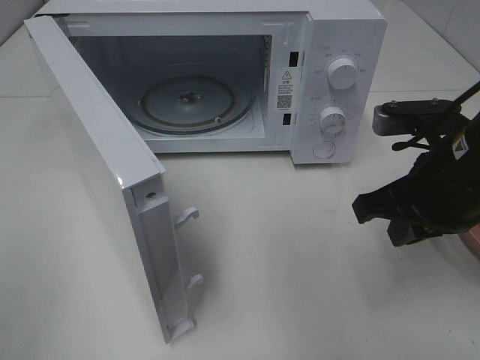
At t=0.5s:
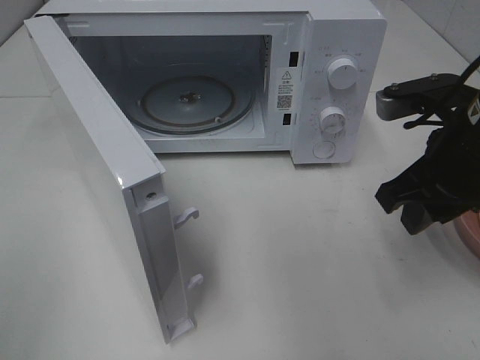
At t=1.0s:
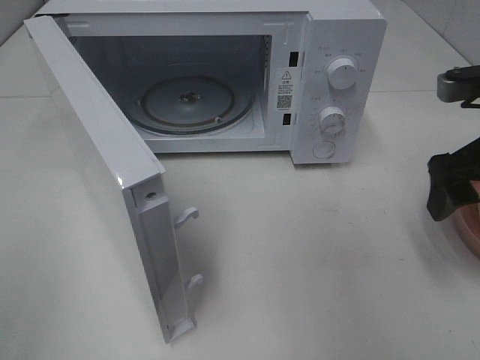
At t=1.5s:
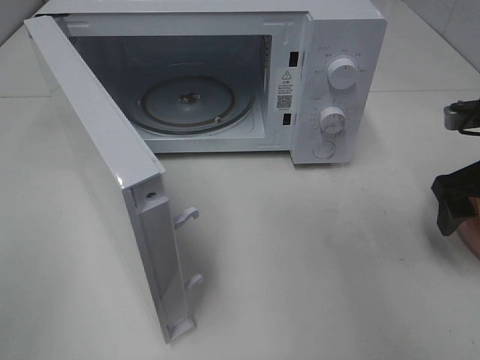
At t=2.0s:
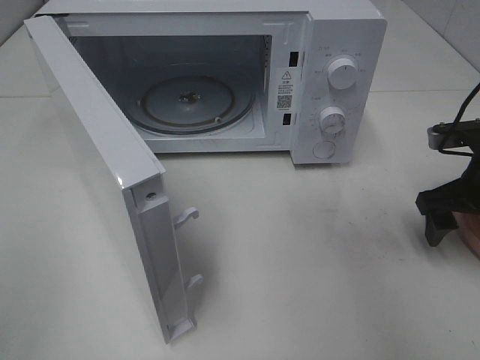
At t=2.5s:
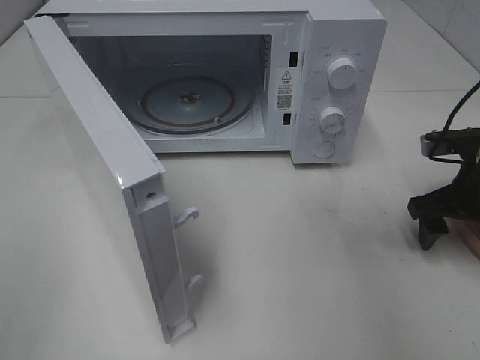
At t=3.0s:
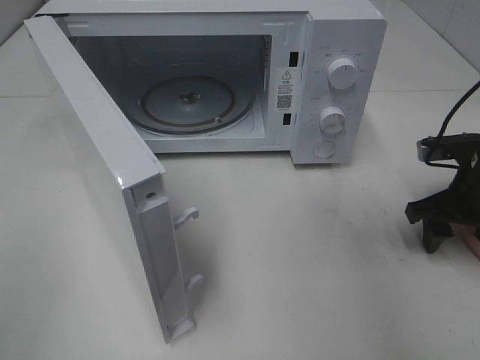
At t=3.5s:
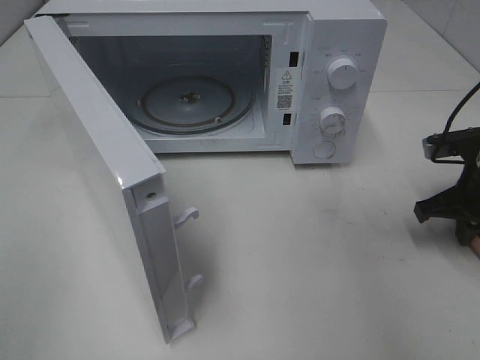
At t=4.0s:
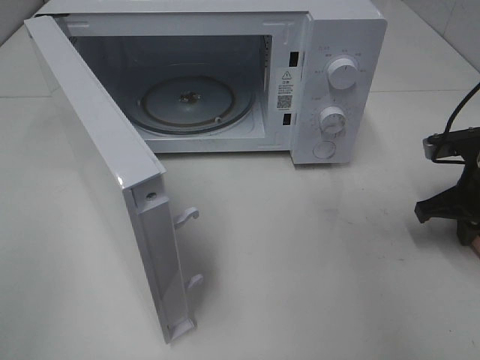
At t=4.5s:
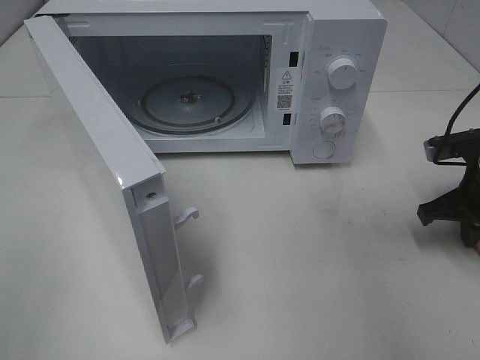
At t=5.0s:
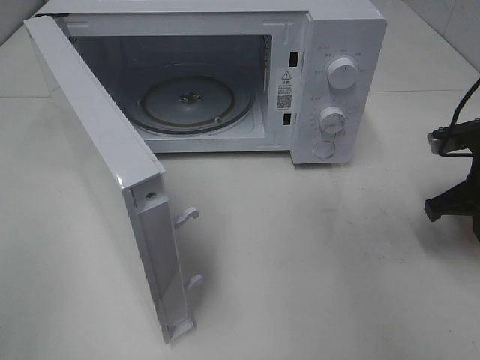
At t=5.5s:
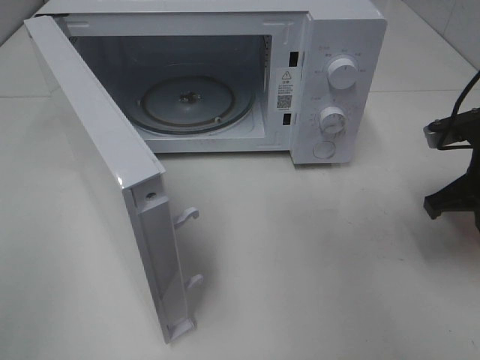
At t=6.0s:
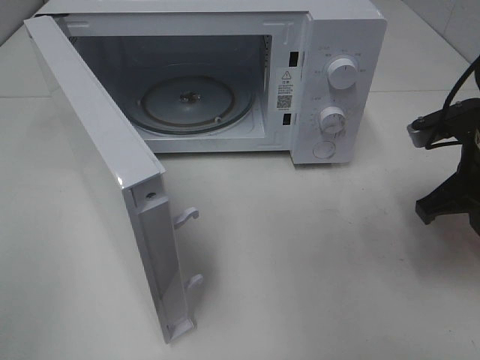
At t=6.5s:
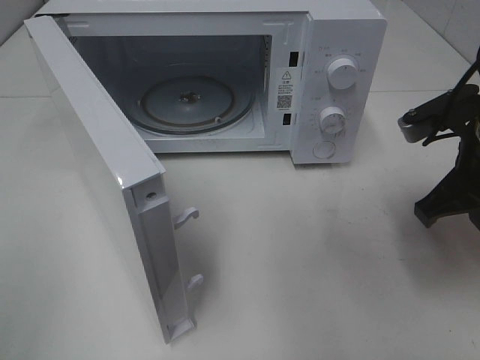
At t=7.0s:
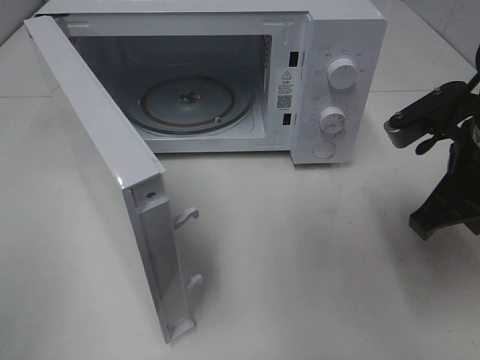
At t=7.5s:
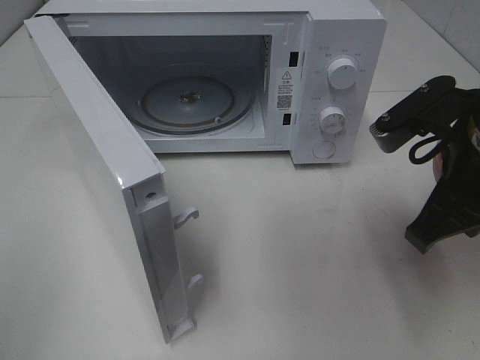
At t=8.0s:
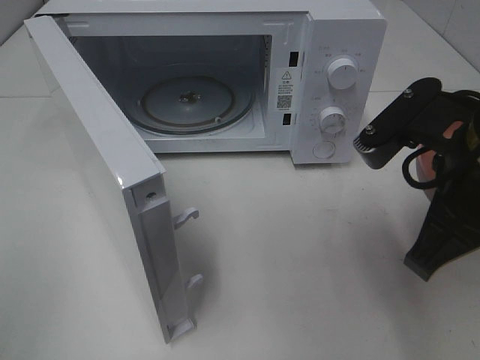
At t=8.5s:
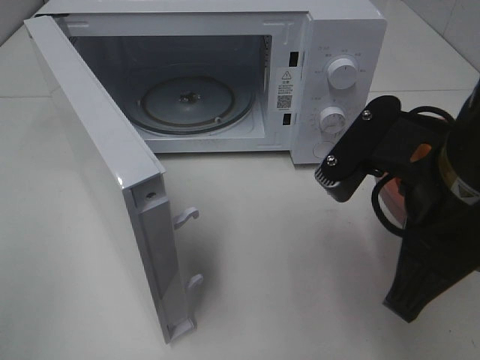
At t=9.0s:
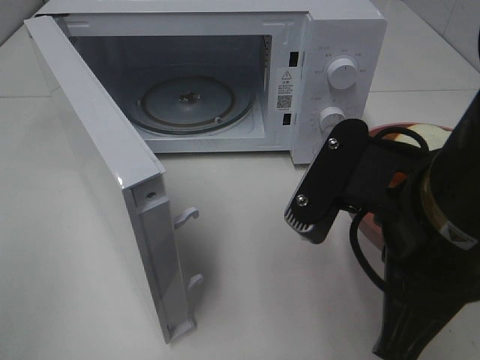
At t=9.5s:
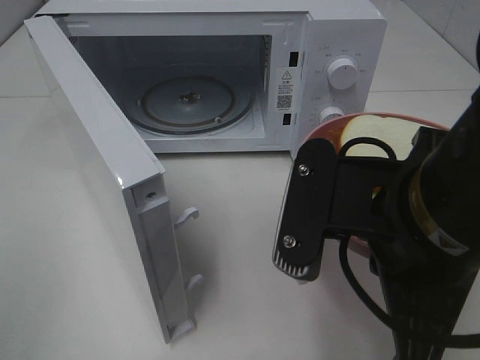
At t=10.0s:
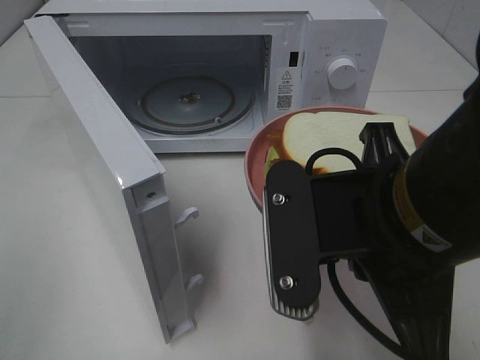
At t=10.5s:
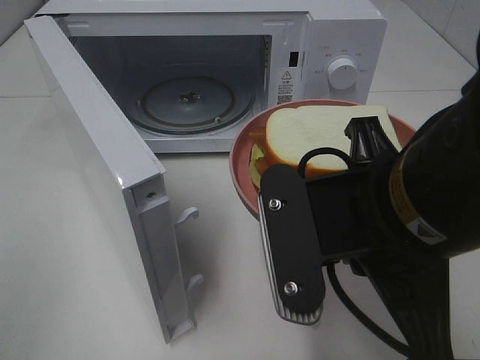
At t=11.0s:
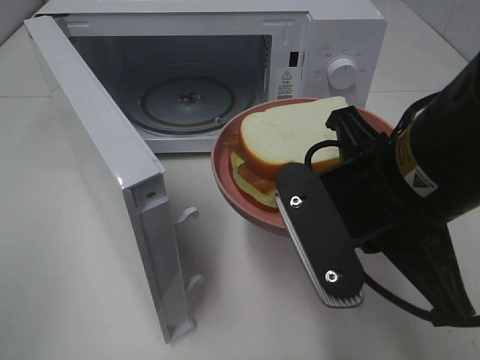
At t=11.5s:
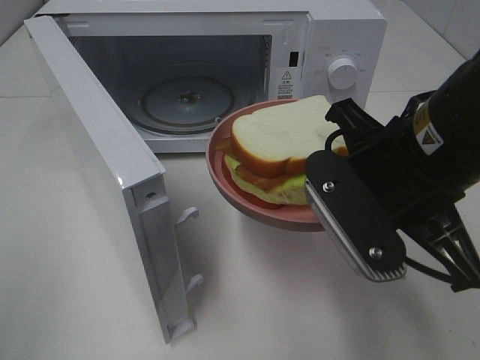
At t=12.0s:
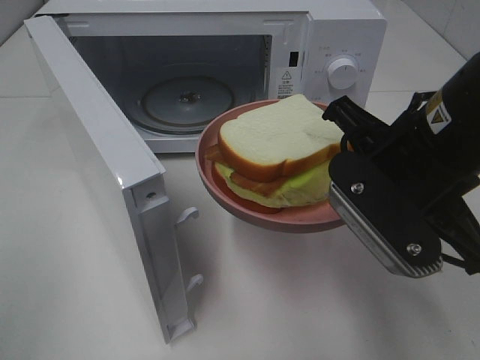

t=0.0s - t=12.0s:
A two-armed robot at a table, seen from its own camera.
Task of the whole recording: Heat Sandwich.
Step, t=0.0s - t=3.5s: Right hand: grab the plate with the sandwich.
t=0.0s - t=2.0s: The right gripper shifts about 15 cm to the right, forward and downward, and opens its fingers.
t=2.0s - t=4.0s: The right gripper closes.
t=4.0s - t=6.0s: The right gripper goes roughly 10 cm upward and to the left.
t=6.0s - t=8.0s: The right gripper is displaced backward, to the left and upward by about 15 cm.
t=8.0s - t=10.0s: The right gripper goes about 10 cm to the left and backward.
t=10.0s - t=12.0s: The right gripper travels forward by roughly 5 cm.

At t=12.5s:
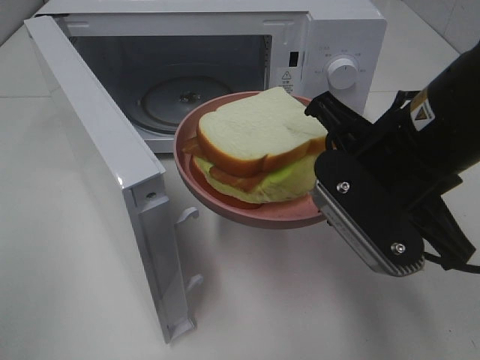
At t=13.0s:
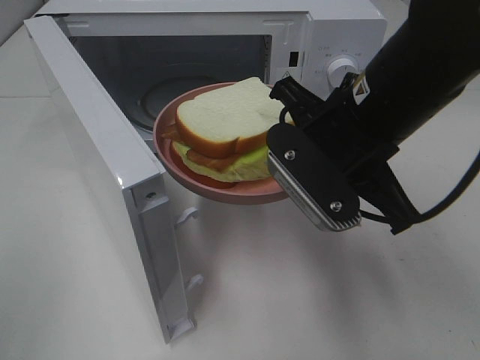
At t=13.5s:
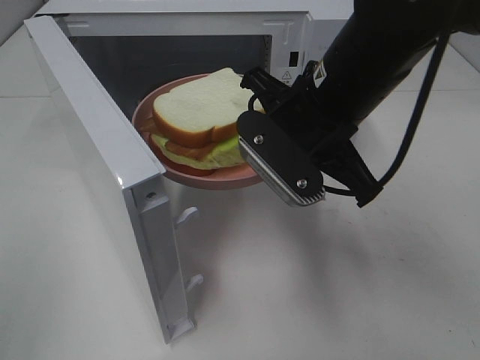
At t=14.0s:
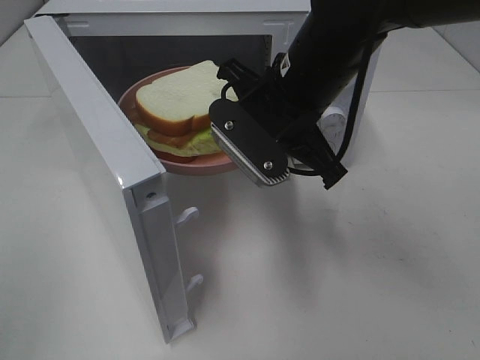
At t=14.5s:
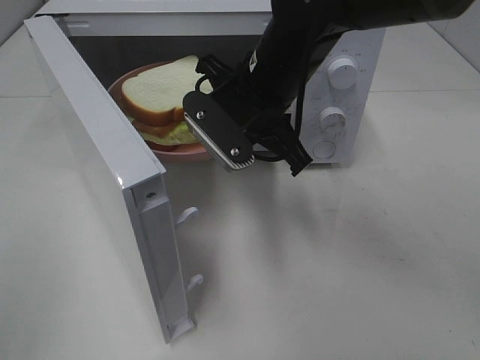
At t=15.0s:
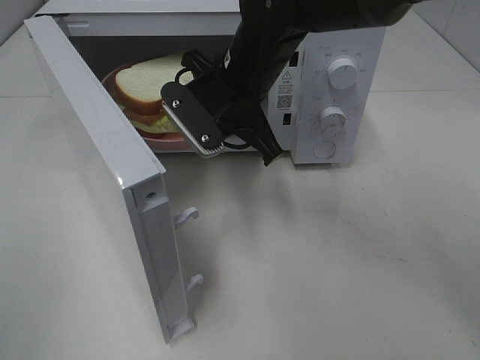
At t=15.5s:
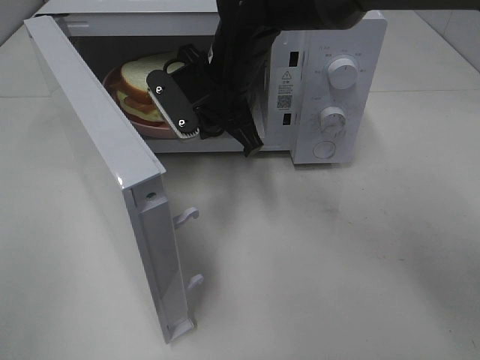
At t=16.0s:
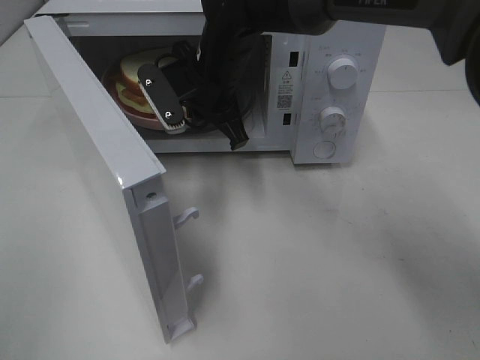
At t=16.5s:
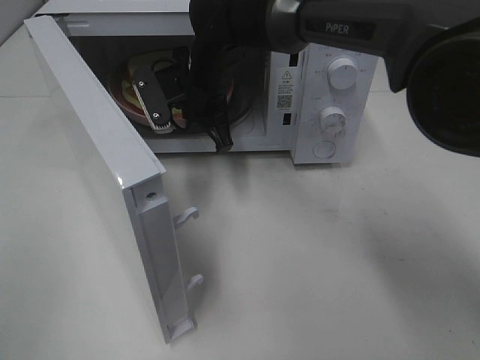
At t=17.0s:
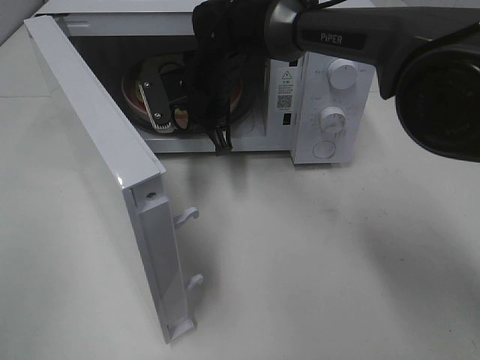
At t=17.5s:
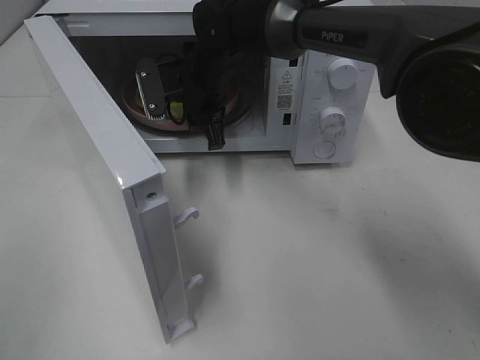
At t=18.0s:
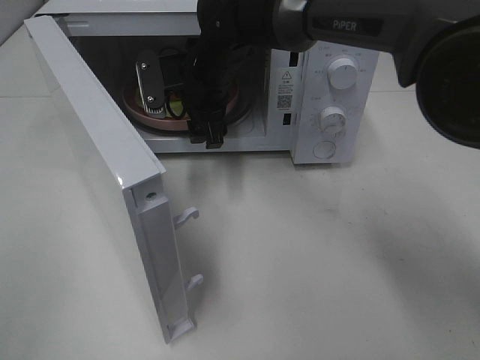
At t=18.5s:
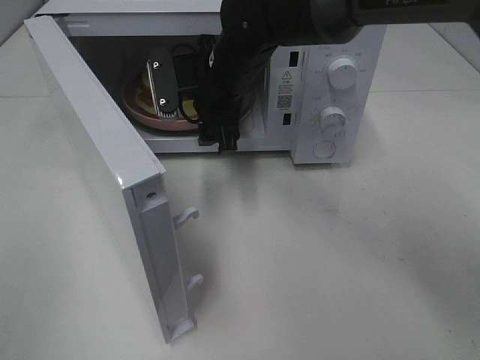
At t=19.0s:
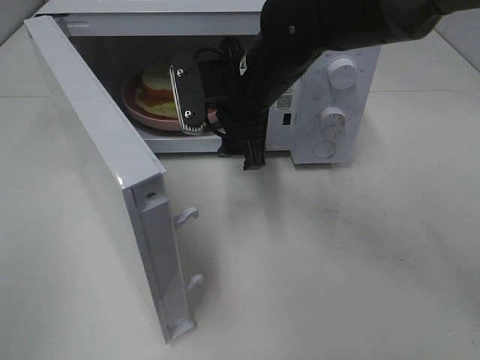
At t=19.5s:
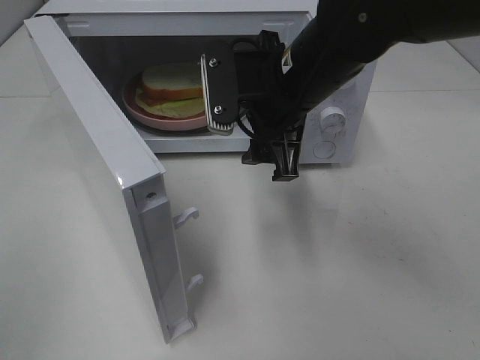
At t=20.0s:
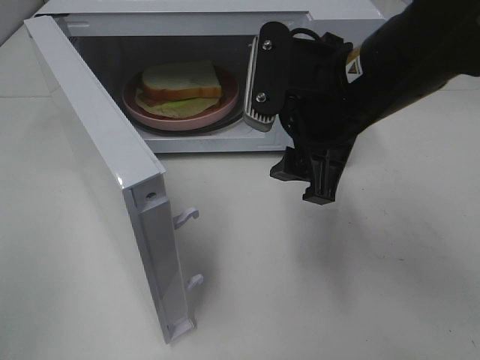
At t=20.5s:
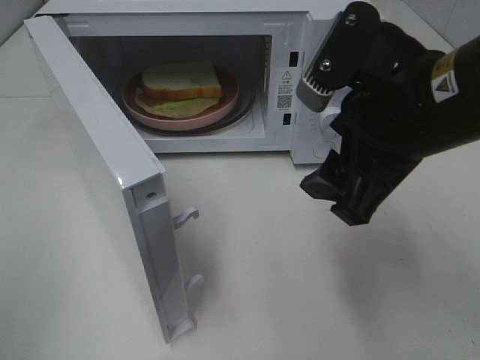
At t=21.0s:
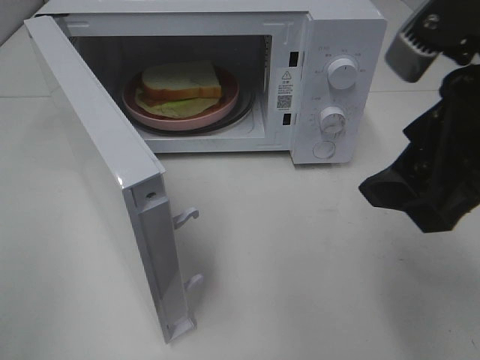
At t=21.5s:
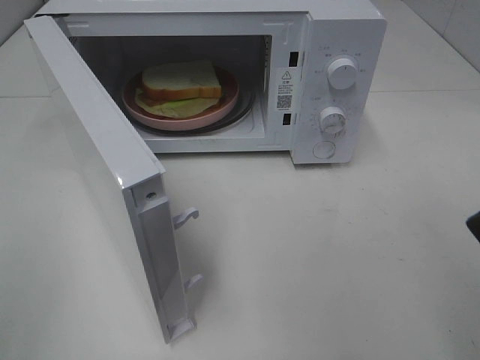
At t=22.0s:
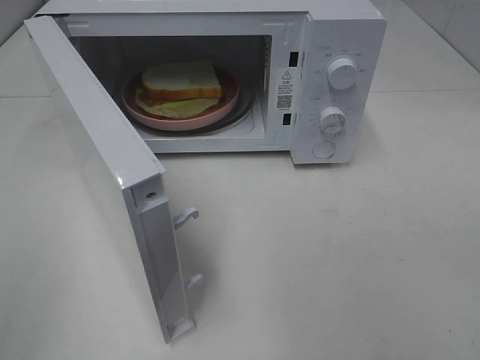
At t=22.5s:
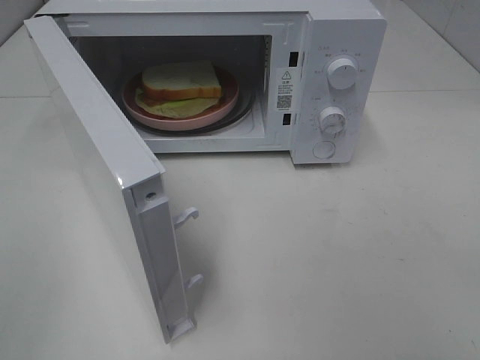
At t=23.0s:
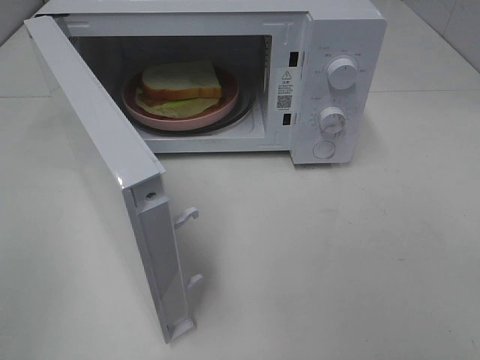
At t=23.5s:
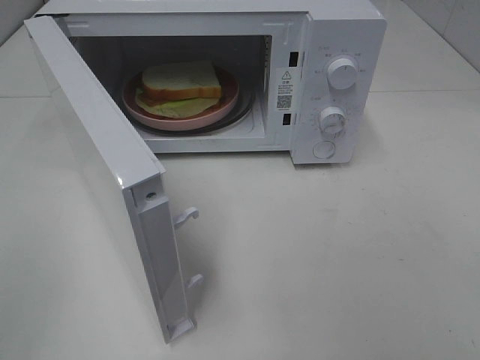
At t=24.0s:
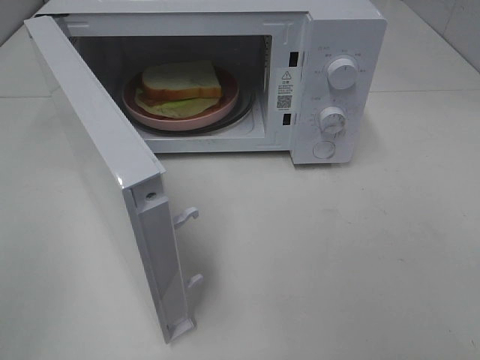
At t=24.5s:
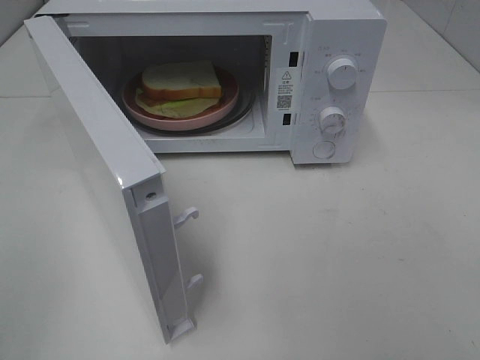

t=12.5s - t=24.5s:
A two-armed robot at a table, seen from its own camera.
Task of the whole recording: Heat Sandwich.
Step, t=12.5s - t=18.5s: Right hand: place the plate in the microwave.
t=12.5s - t=14.5s: The right gripper shifts approximately 15 cm forward and to the left.
t=14.5s - t=16.5s: The right gripper heads forward and to the left, covering some 10 cm.
t=16.5s - t=18.5s: The right gripper opens.
t=18.5s - t=20.5s: The right gripper moves backward and to the right, about 25 cm.
t=20.5s - t=22.5s: The right gripper goes approximately 20 cm backward and to the right.

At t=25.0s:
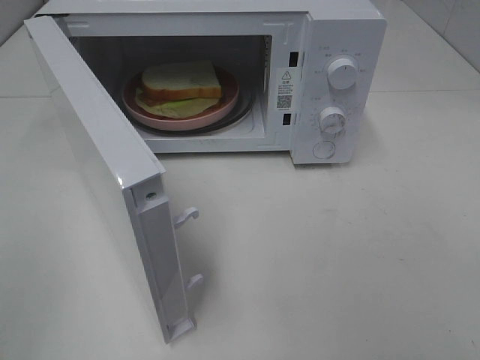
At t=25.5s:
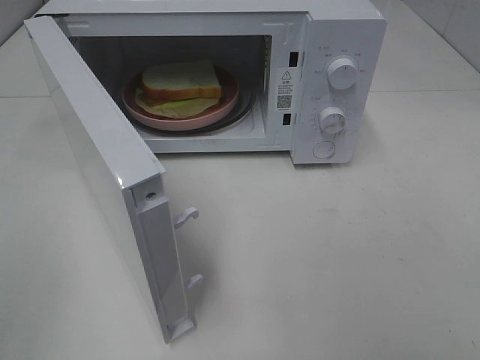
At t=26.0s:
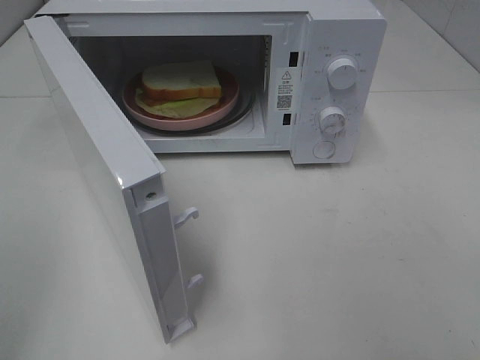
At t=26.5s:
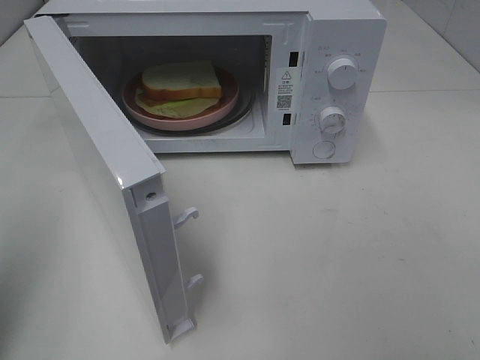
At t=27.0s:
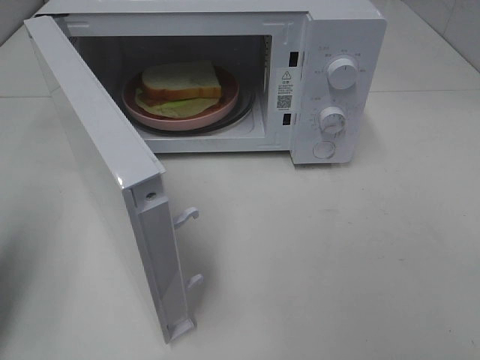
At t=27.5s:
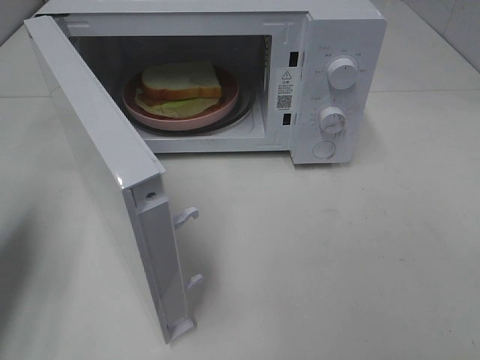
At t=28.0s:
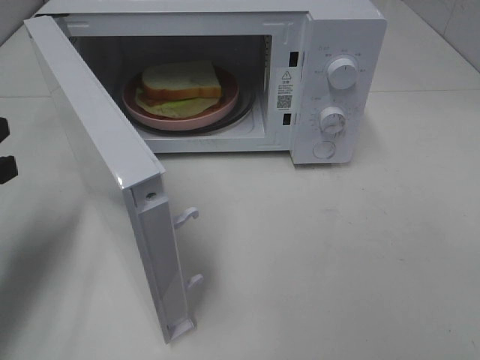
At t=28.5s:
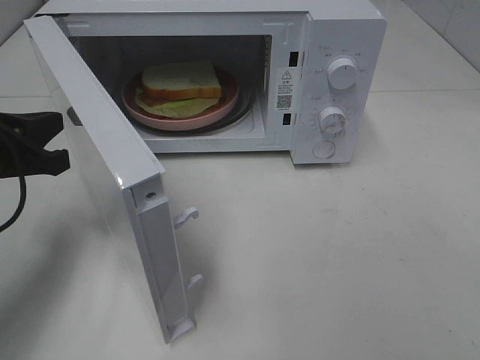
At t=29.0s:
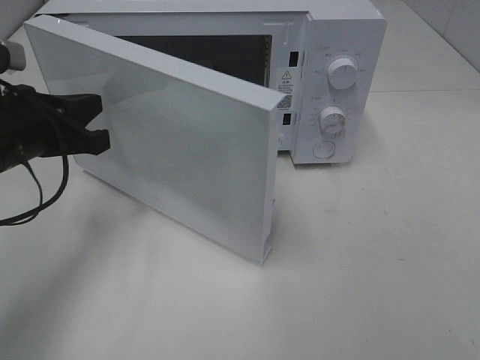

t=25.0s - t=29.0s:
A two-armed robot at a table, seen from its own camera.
Task of the whole recording: Heat Sandwich.
t=25.0s - t=27.0s: The left gripper shifts roughly 15 cm forward, and closes up.
t=27.0s - t=29.0s: The left gripper heads forward, to the right and downward, covering some 15 cm.
